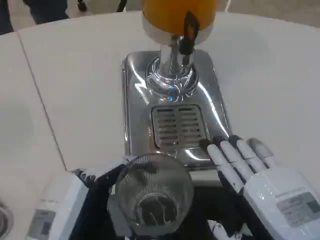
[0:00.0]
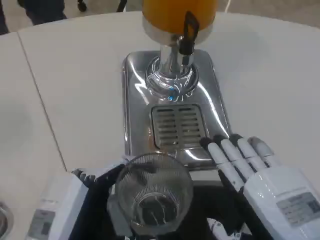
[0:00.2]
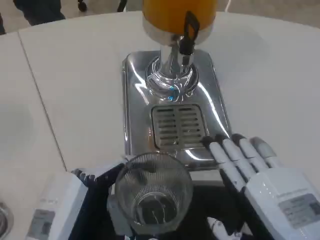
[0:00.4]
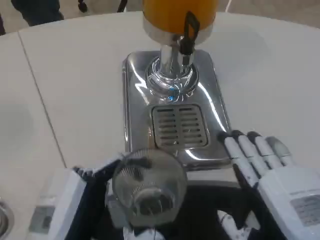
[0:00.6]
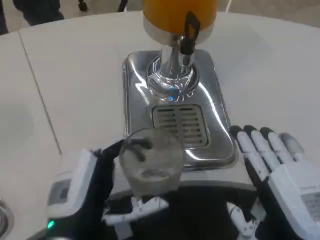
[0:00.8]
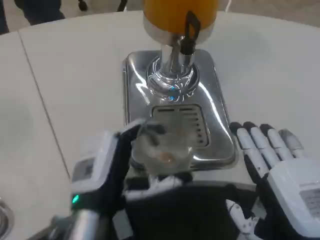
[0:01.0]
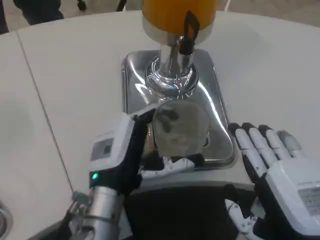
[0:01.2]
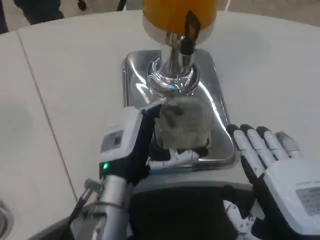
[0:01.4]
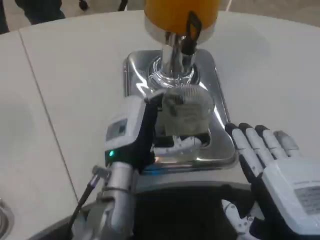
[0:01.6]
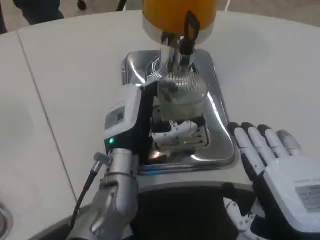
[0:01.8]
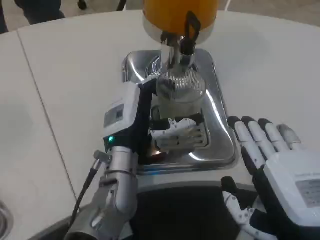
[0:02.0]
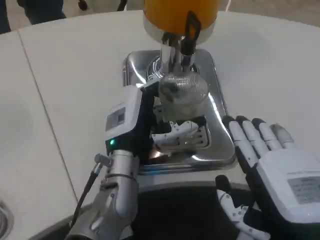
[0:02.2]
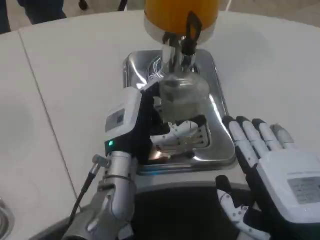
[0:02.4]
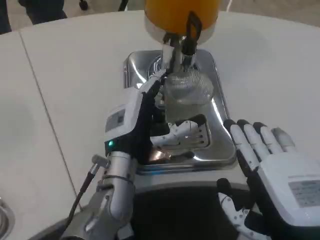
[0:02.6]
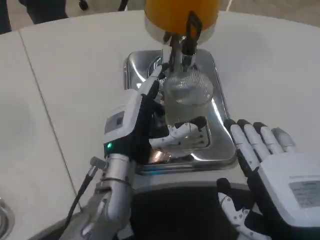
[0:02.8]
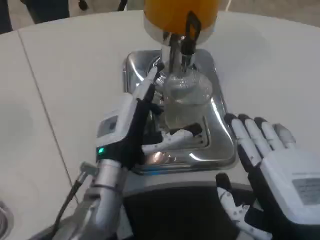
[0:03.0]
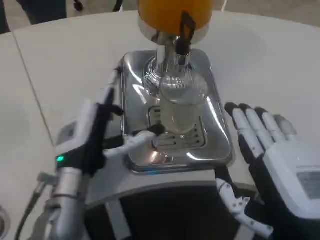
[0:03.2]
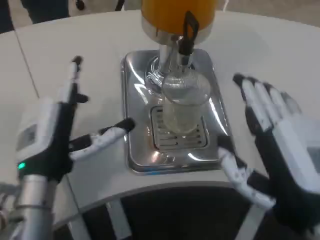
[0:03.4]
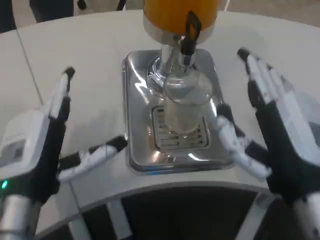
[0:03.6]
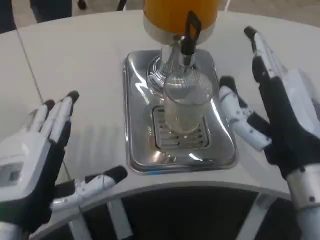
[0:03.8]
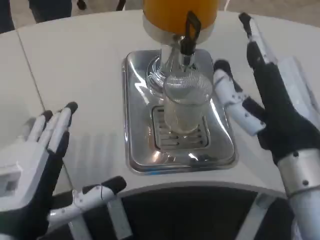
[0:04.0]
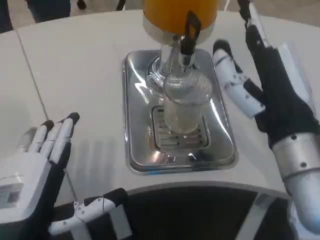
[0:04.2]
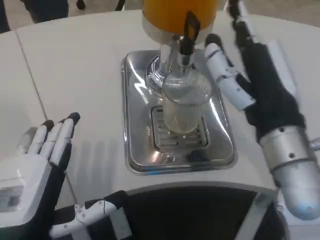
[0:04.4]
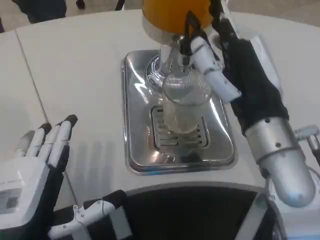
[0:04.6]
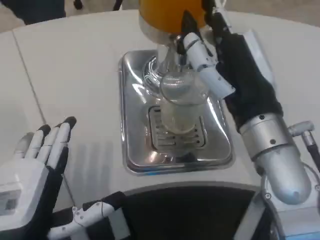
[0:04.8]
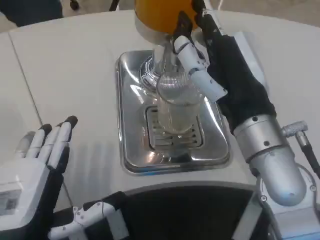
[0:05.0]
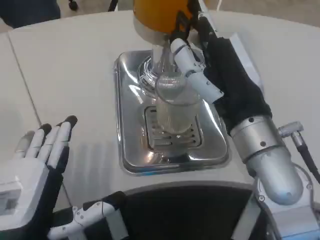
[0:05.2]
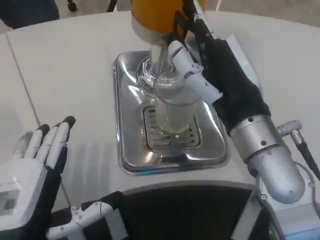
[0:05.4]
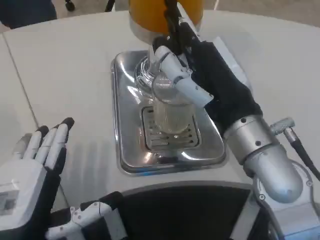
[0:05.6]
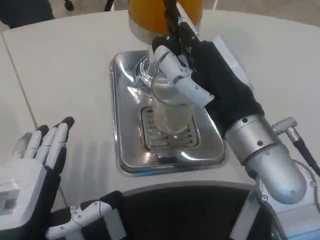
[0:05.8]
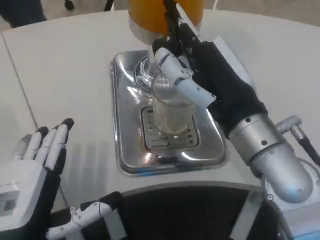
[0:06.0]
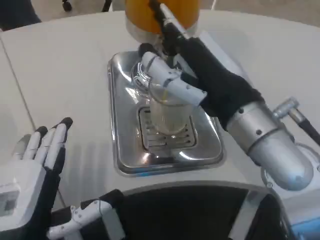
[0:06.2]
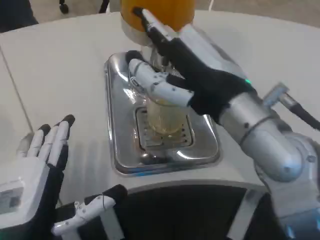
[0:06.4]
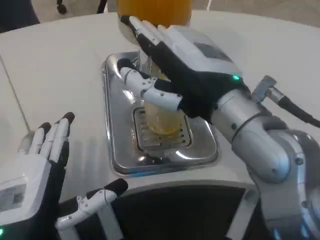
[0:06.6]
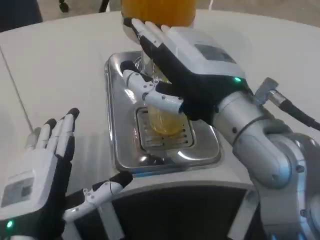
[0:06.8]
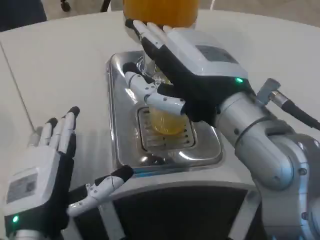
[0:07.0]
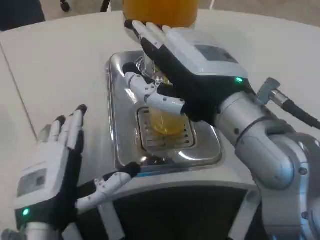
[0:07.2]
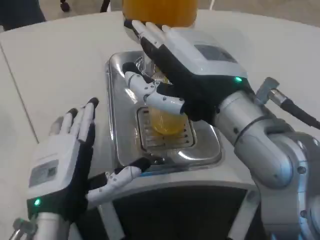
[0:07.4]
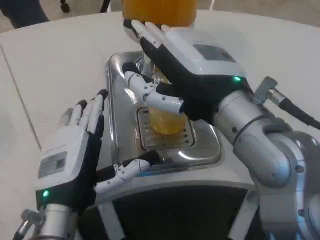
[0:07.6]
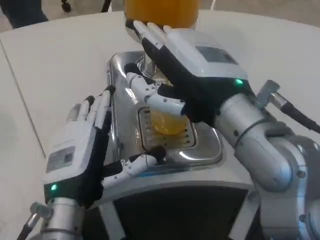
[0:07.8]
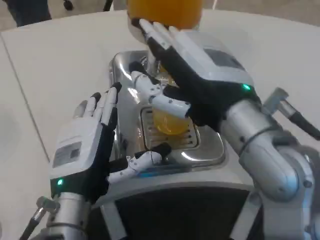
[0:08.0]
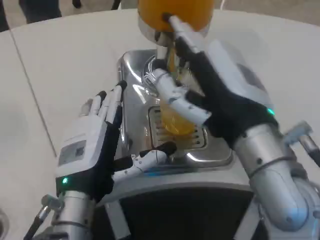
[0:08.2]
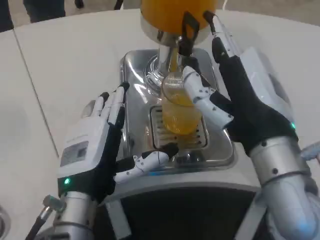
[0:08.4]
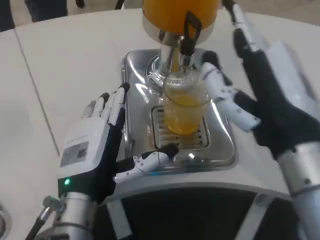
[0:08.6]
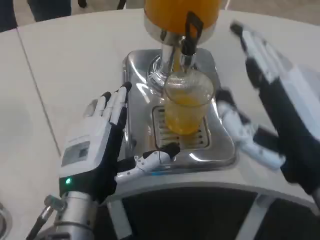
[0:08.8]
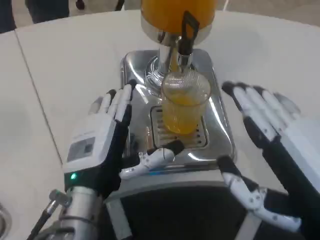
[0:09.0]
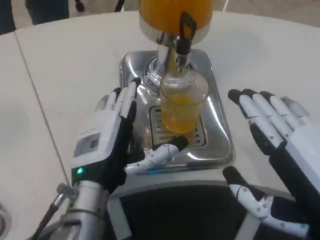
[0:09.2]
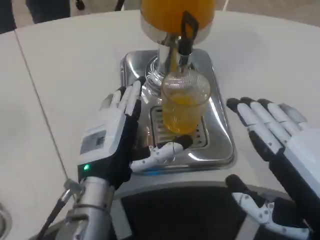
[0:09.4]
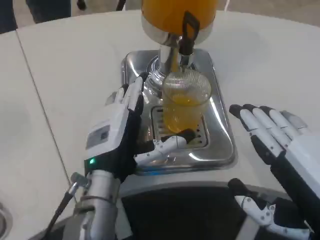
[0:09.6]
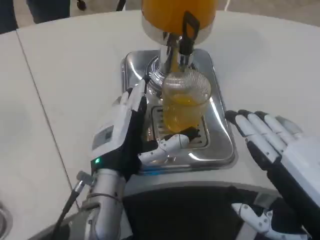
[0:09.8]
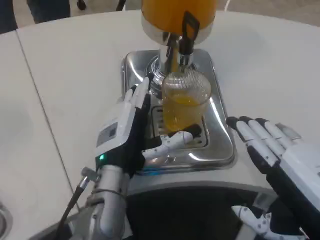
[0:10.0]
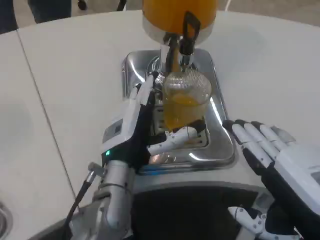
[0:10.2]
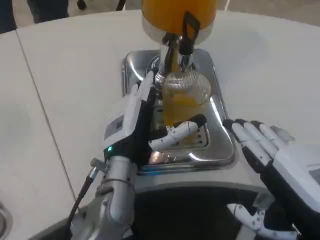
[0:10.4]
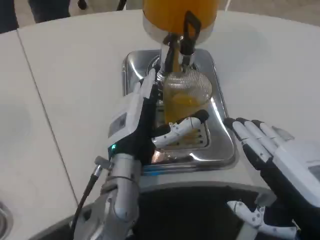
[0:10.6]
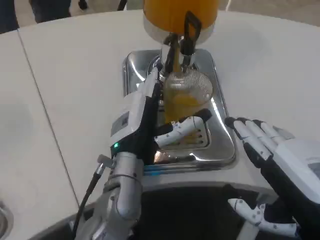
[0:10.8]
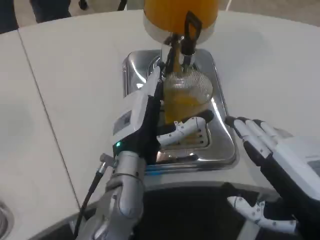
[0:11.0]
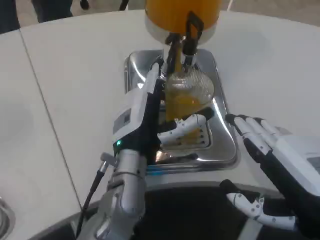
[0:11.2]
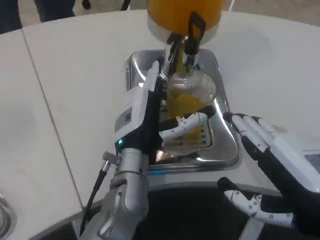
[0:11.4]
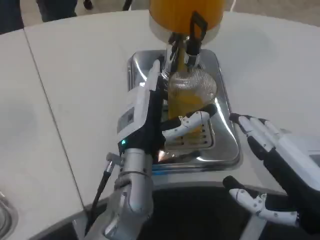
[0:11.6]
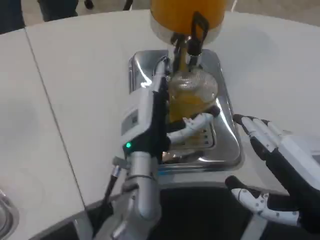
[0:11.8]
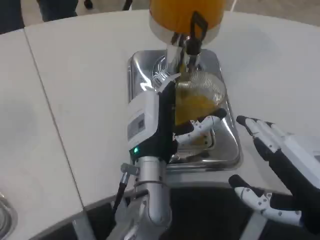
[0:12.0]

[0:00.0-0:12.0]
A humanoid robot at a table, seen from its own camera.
Task of the whole recording: Grasp the cup under the faucet to collect the drink, then remove the cup.
0:00.0 to 0:01.6: The left hand travels forward and to the right by approximately 20 cm.
0:01.6 to 0:03.0: There are only small adjustments of the hands.
0:03.0 to 0:04.4: The left hand goes some 15 cm backward and to the left. Meanwhile the right hand is displaced forward and upward by approximately 10 cm.
0:06.0 to 0:07.6: The left hand moves forward, some 5 cm.
0:07.6 to 0:09.0: The right hand travels backward, to the right and downward by some 15 cm.
0:09.0 to 0:10.4: The left hand moves forward, approximately 5 cm.
0:10.4 to 0:12.0: The left hand moves to the right, approximately 5 cm.

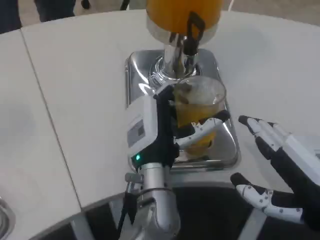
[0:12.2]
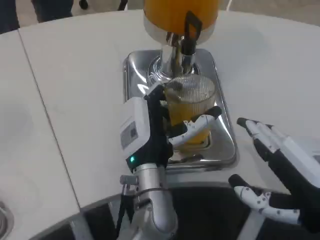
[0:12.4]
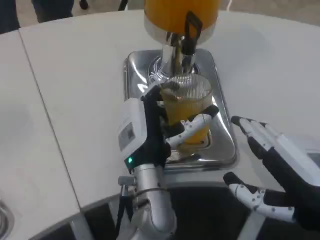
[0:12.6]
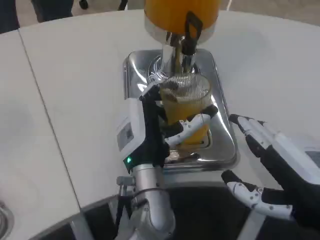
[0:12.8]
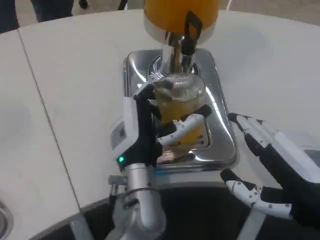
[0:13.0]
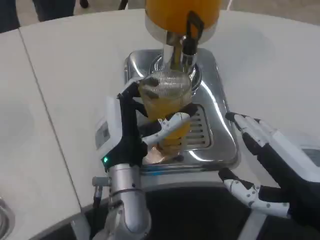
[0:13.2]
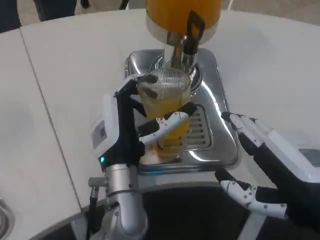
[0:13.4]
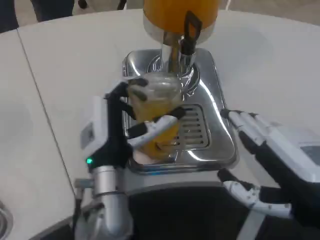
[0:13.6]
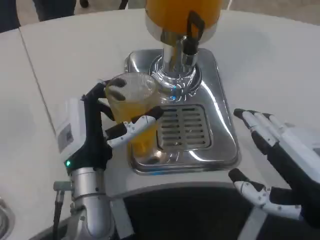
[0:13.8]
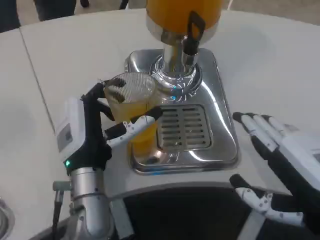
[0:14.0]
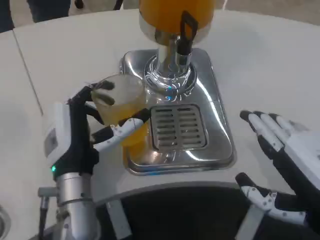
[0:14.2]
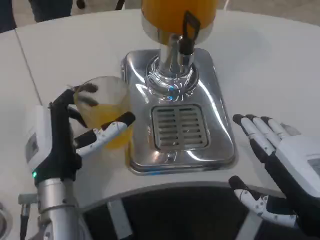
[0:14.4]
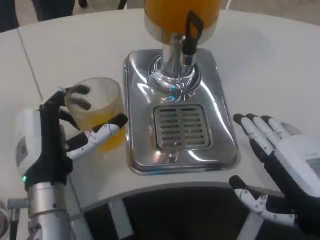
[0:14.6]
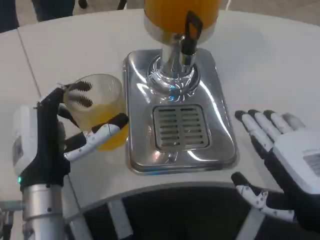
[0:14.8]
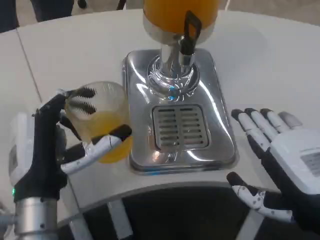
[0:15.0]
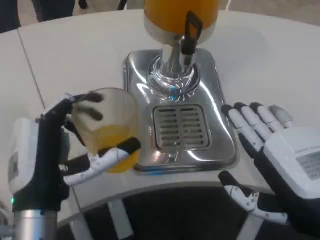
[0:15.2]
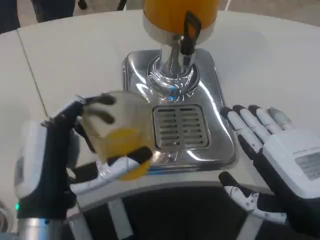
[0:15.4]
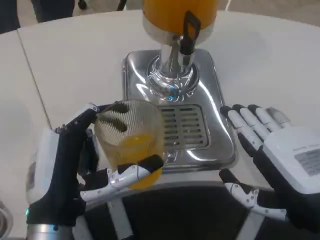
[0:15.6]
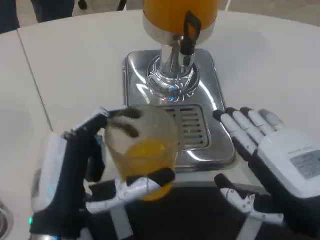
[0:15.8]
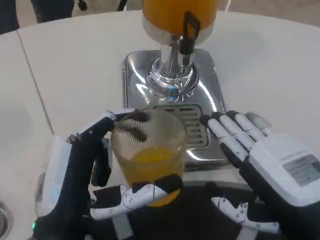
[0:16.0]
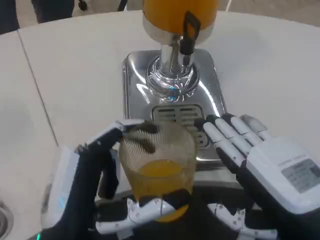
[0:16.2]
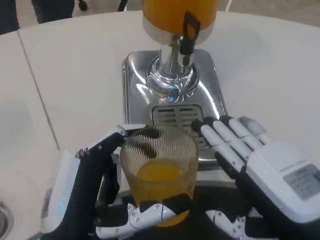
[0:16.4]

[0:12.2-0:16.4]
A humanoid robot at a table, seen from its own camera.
Task of the whole recording: Grasp the cup under the faucet to collect the drink, then remove the cup.
0:12.2 to 0:13.6: The left hand heads to the left, covering roughly 5 cm.
0:13.6 to 0:15.0: The left hand is displaced backward and to the left by approximately 10 cm.
0:15.0 to 0:16.4: The left hand is displaced backward by some 10 cm.

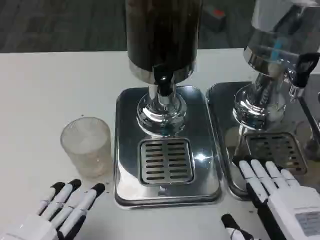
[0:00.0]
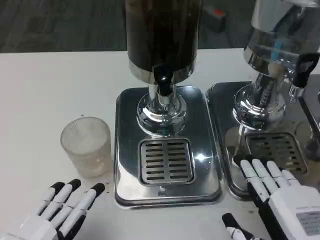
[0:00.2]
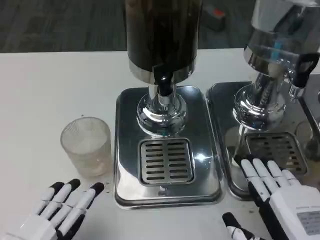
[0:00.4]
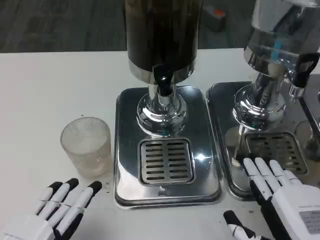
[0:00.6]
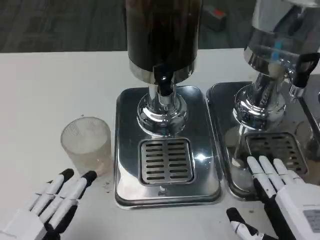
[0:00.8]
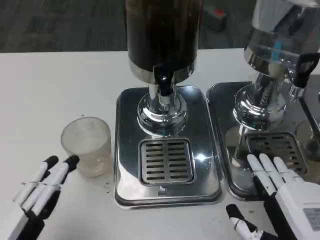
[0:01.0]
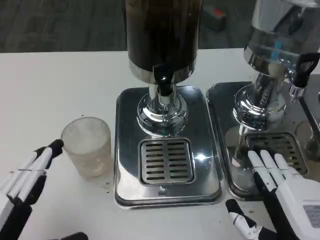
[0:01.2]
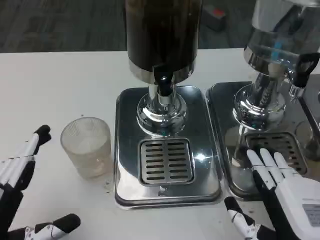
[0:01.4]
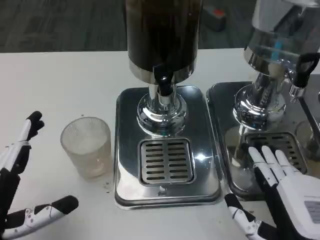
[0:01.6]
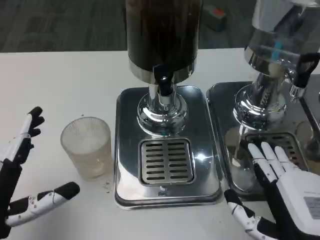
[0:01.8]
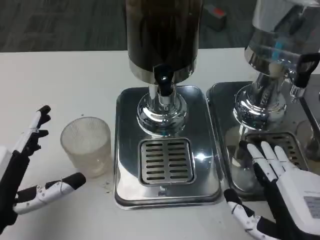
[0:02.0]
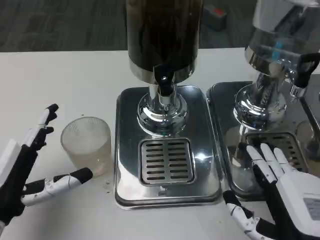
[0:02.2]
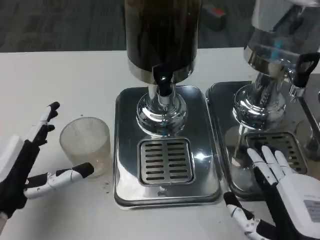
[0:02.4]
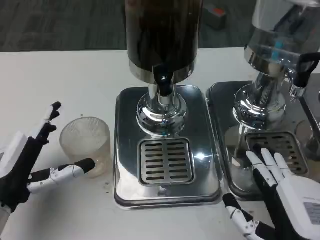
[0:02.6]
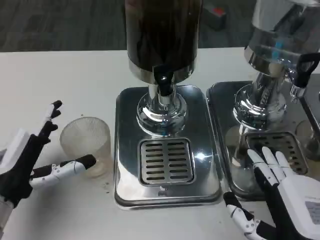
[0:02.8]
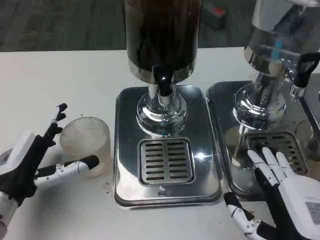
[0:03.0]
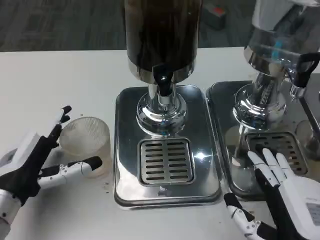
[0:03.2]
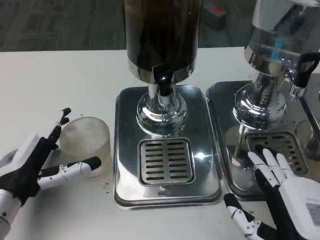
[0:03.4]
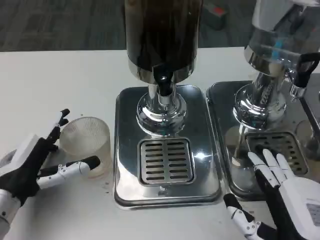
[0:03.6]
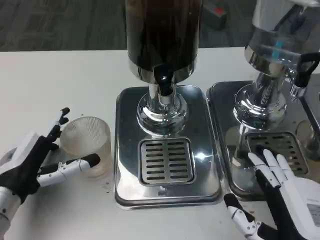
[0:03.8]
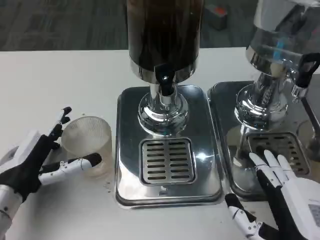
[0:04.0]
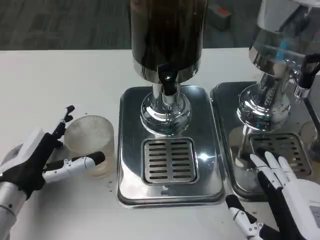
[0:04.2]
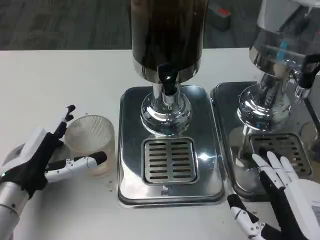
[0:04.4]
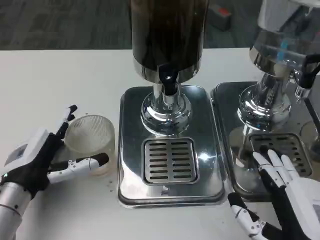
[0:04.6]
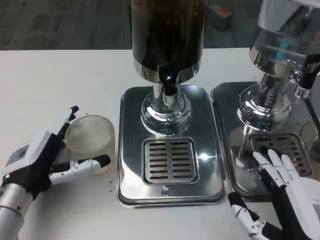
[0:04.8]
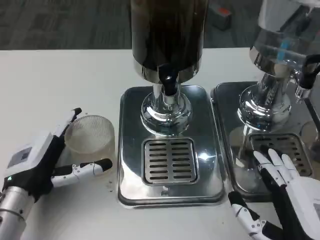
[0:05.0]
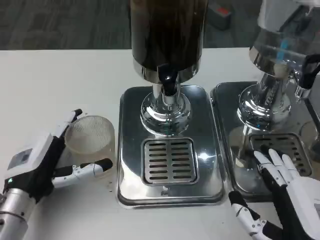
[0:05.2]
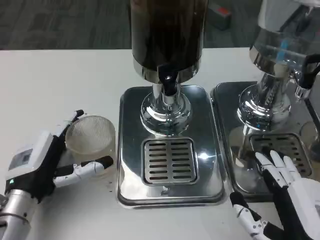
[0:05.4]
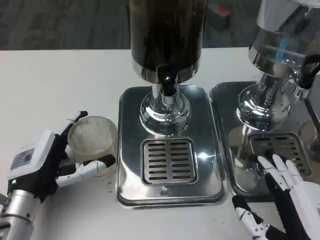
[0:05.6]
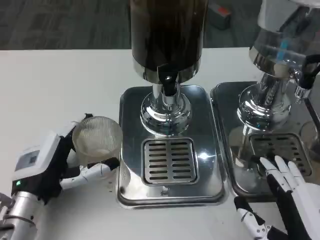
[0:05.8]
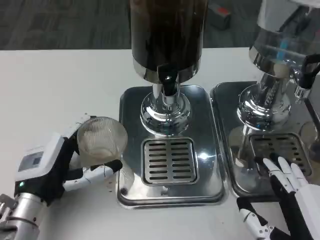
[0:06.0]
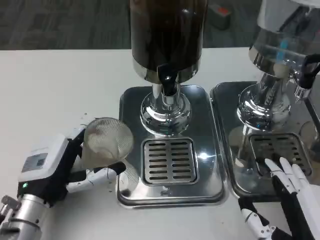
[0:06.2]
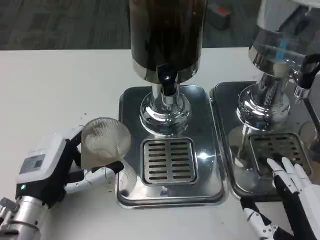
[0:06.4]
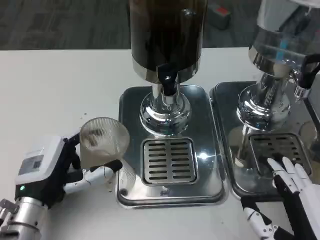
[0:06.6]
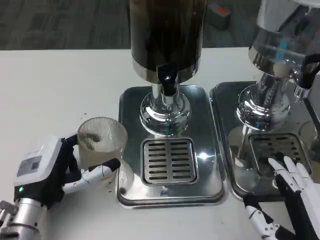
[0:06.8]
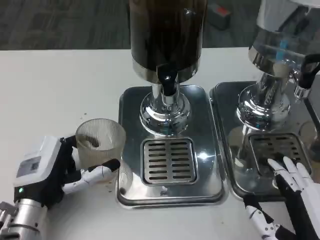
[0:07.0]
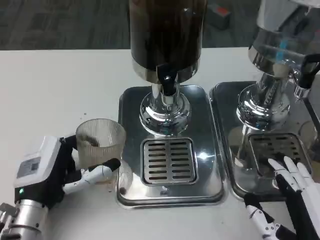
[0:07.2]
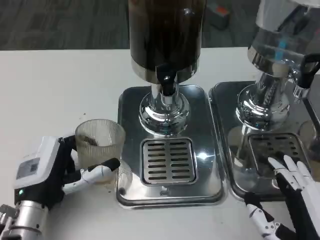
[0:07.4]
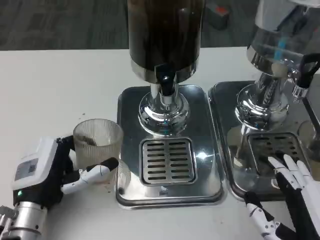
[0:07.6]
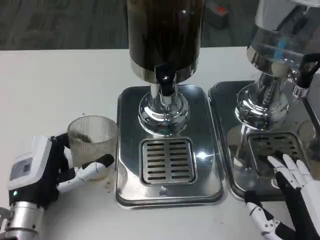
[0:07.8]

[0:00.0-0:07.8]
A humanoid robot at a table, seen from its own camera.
Task of the whole recording: Grasp the cup under the faucet to collect the drink, then remove the cup.
0:01.6 to 0:03.2: The left hand heads forward, covering some 10 cm.
0:04.6 to 0:06.2: The hands move only a little.
